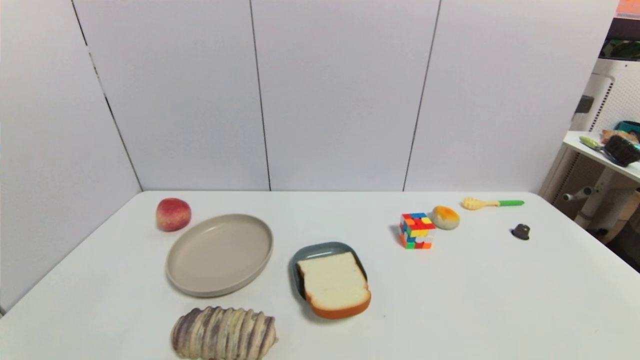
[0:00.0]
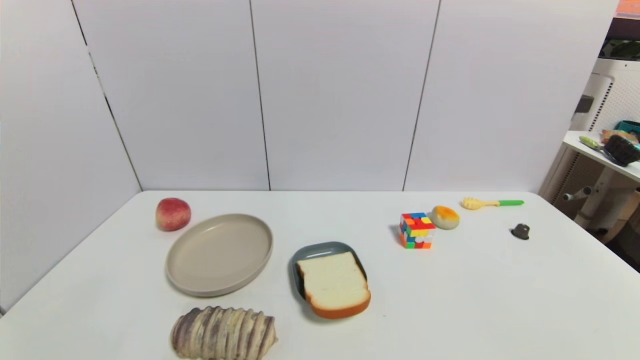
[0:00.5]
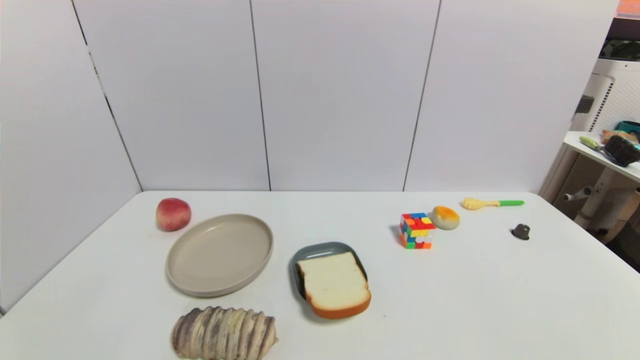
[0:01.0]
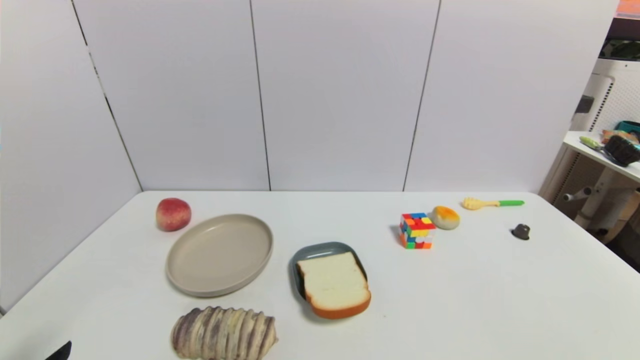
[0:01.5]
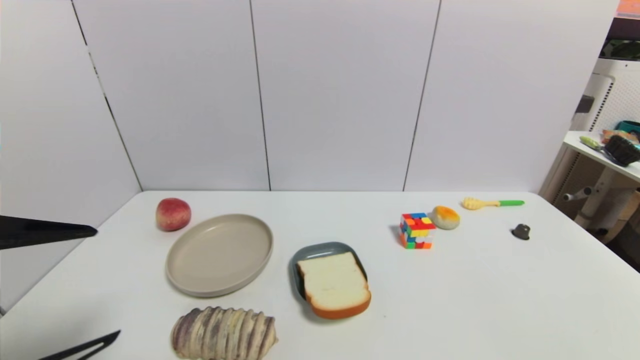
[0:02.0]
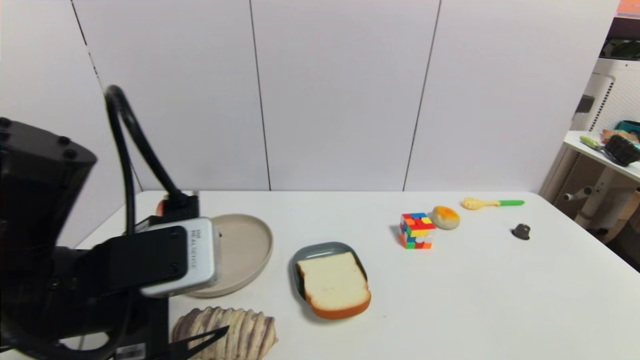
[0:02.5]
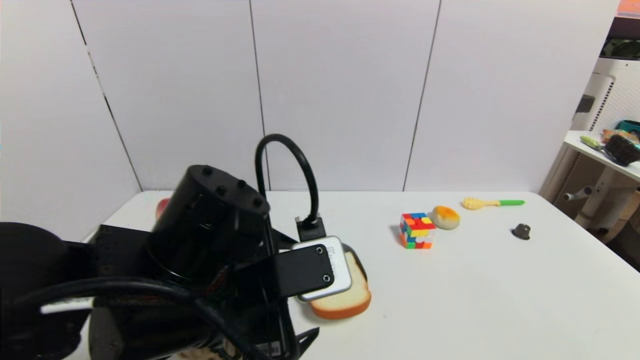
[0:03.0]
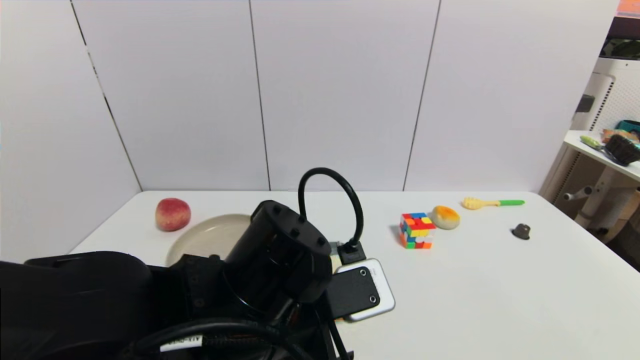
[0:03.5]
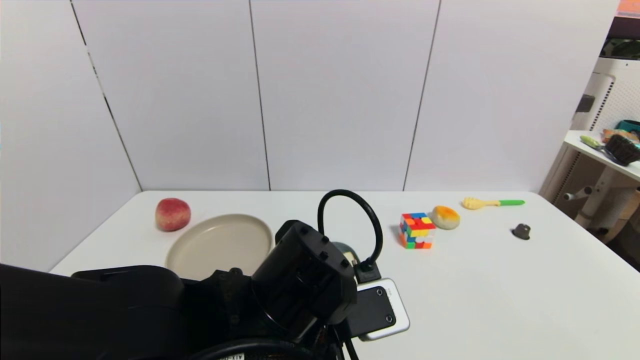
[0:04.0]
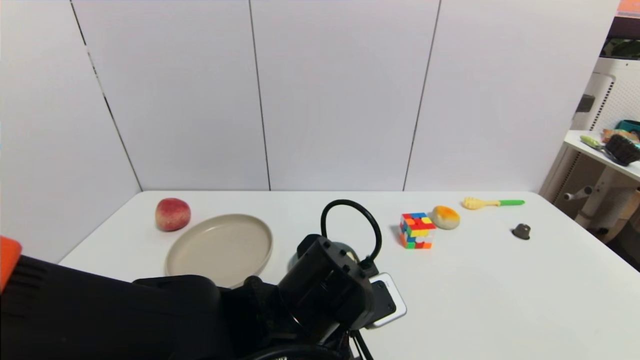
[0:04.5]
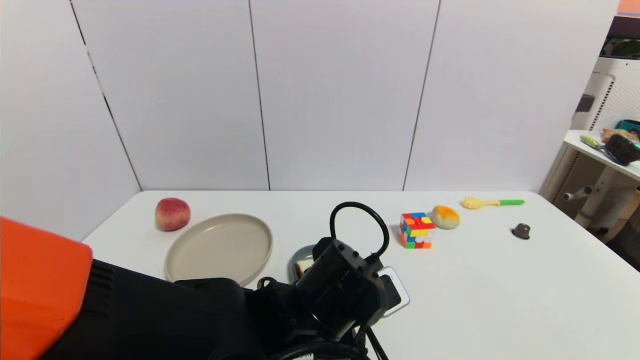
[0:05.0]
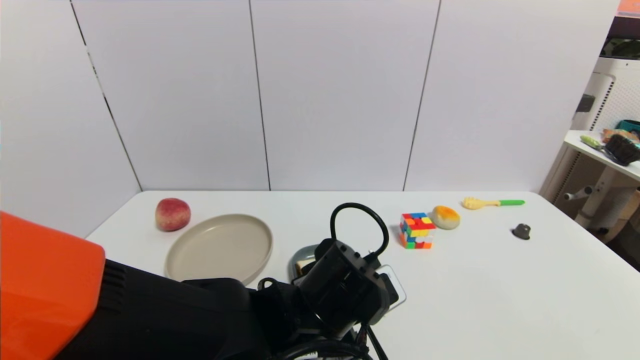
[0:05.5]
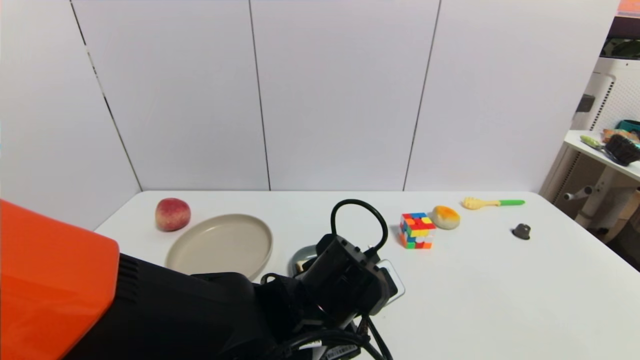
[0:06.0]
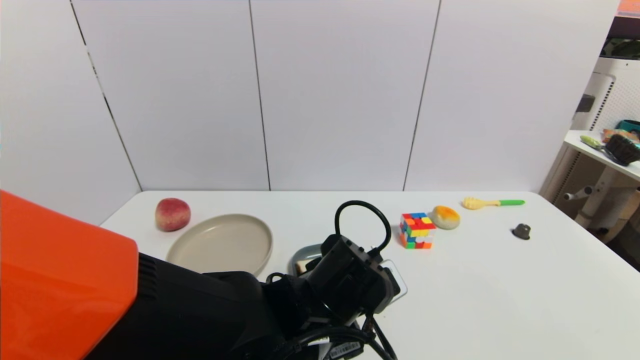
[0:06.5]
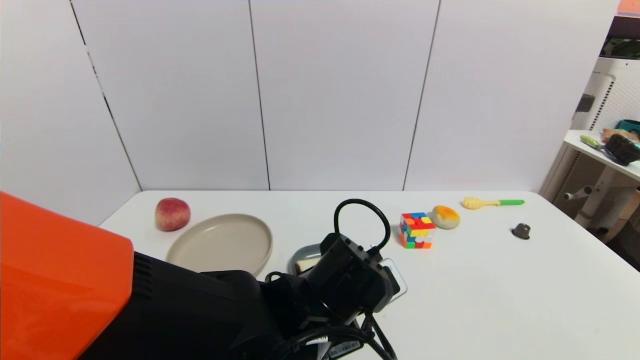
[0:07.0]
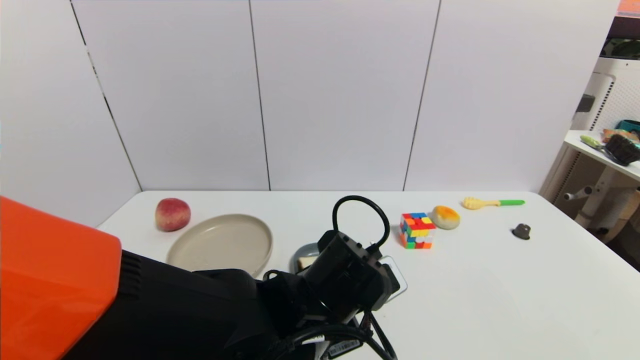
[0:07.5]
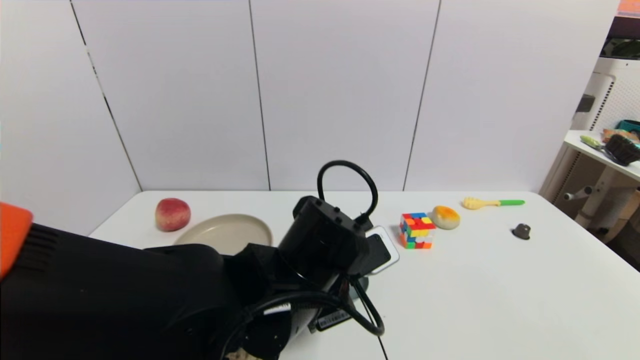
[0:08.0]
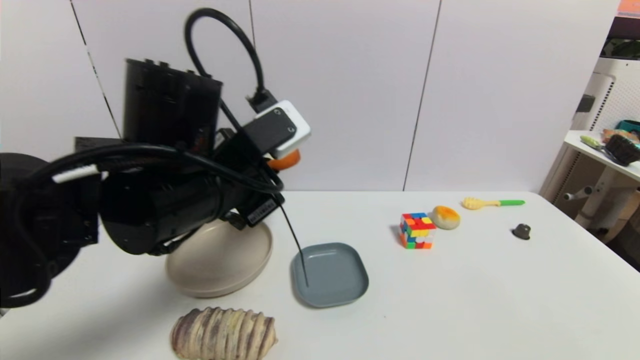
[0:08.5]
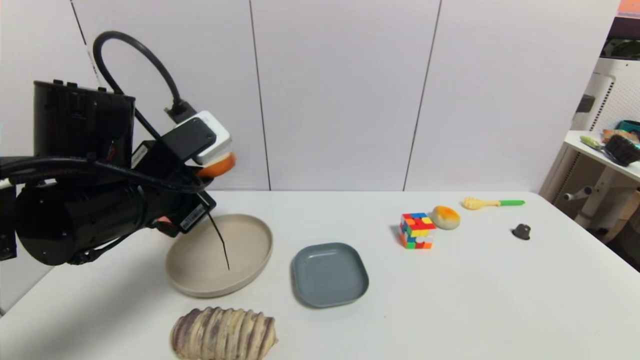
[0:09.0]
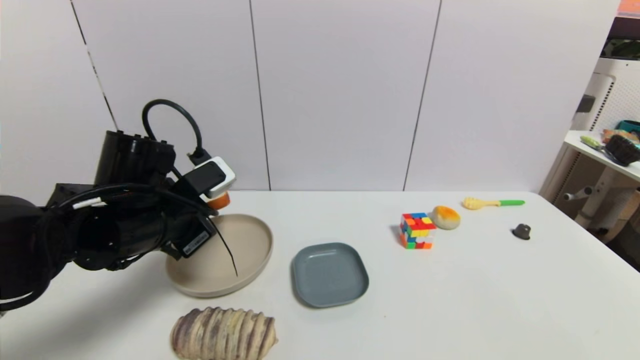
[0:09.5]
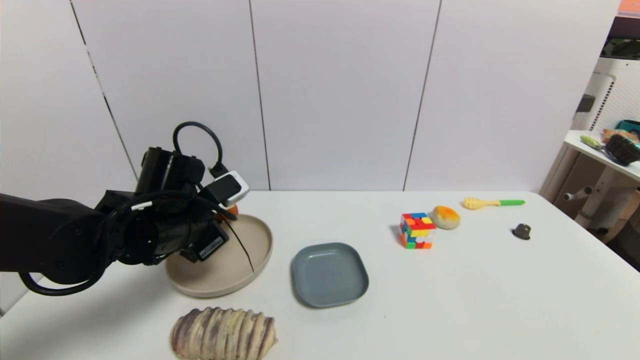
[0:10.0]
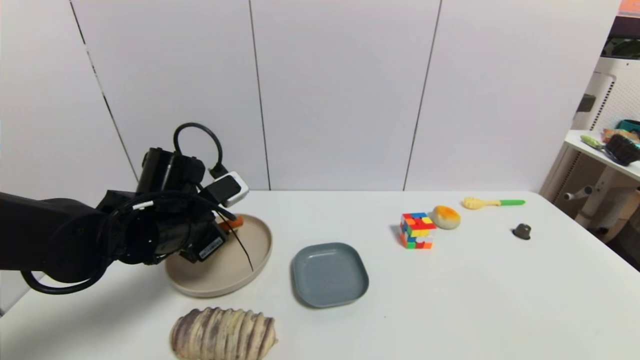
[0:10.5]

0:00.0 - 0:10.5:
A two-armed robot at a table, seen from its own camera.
Task of the whole recording: use a gripper to pick the target object and place on the brown plate.
Step, 0:00.0 - 0:07.0: Grasp the bread slice with the left gripper.
0:00.0 - 0:02.0: The left gripper heads upward and forward, covering about 20 cm.
0:02.0 - 0:04.0: The left gripper is displaced to the right and downward by some 25 cm.
0:04.0 - 0:06.5: The left gripper ends up roughly 5 cm from where it was.
0:06.5 - 0:08.5: The left gripper goes approximately 20 cm upward and to the left, and closes.
0:08.5 - 0:10.5: The left gripper heads downward, to the left and forward, covering approximately 15 cm, and opens up.

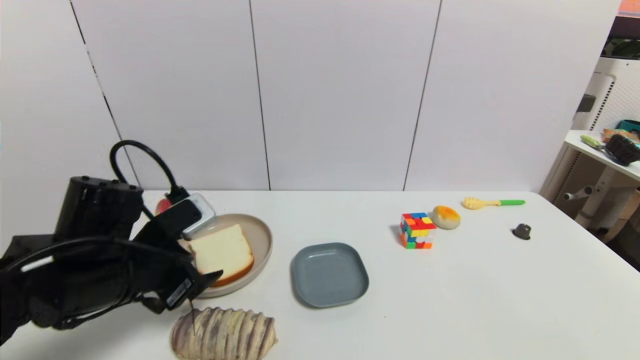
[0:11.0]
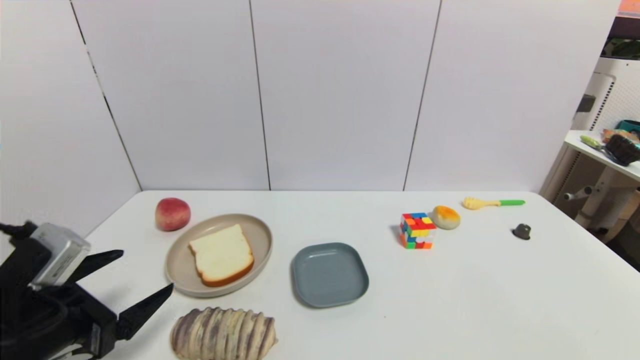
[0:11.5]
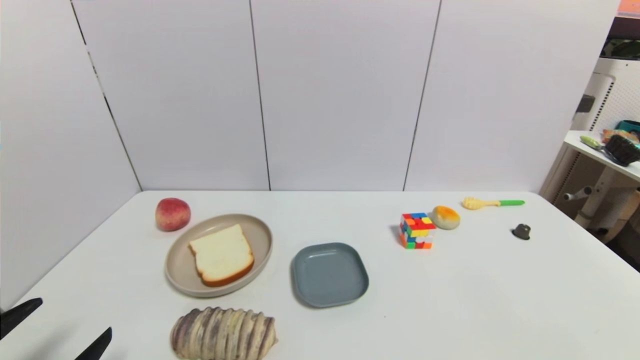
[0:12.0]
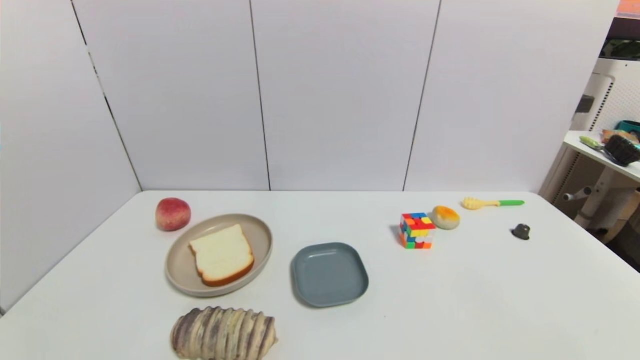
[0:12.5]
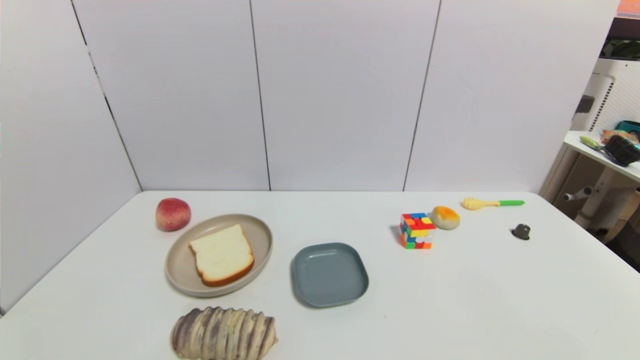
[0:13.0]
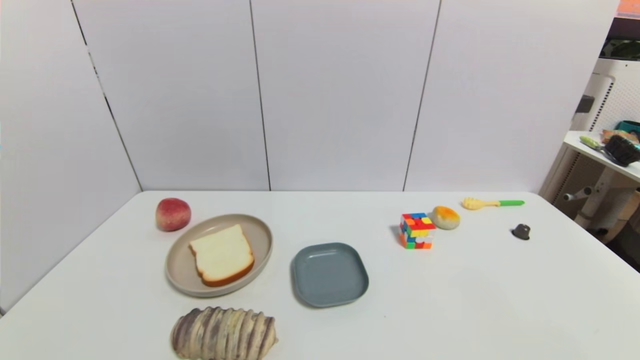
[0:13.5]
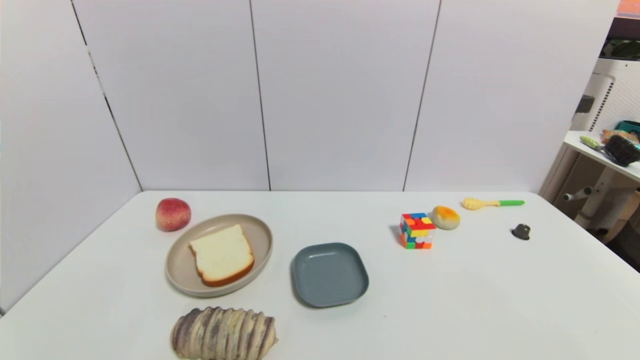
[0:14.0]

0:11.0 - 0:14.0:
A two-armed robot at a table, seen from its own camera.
Task of the whole recording: use a gripper to pick the target object and place on the brown plate.
0:11.0 - 0:12.5: The left gripper goes approximately 20 cm backward.
0:12.5 - 0:14.0: Neither gripper changes place.
